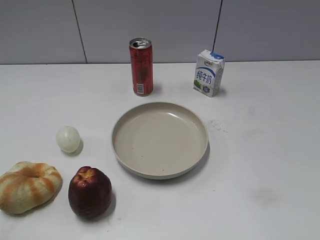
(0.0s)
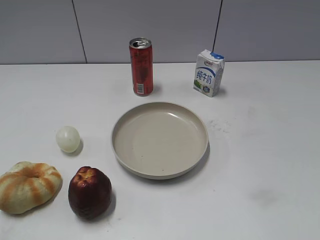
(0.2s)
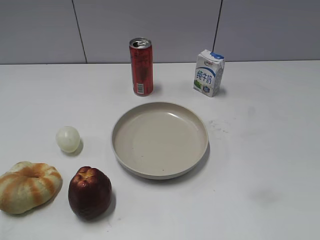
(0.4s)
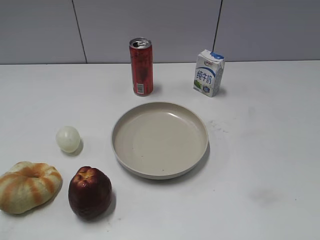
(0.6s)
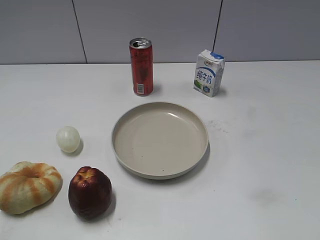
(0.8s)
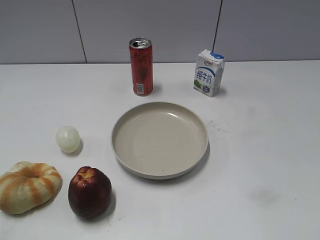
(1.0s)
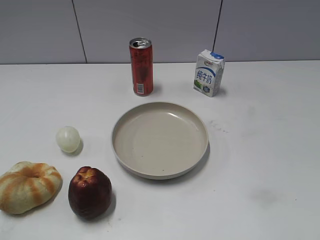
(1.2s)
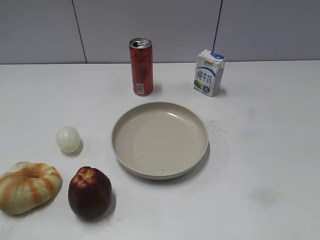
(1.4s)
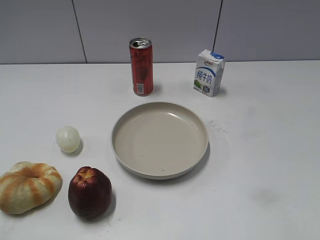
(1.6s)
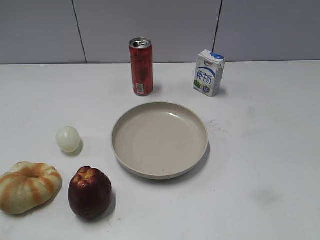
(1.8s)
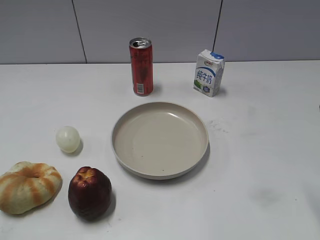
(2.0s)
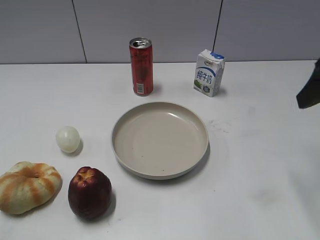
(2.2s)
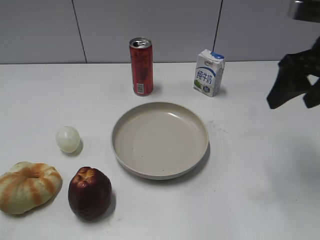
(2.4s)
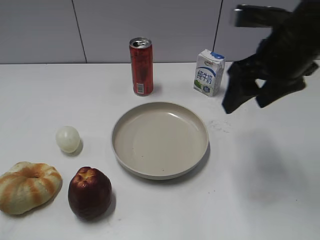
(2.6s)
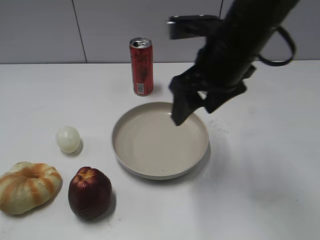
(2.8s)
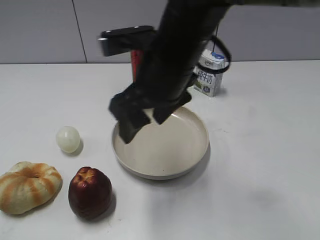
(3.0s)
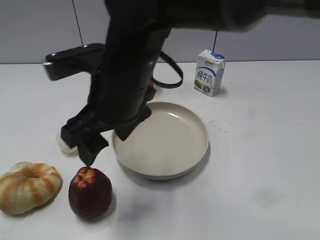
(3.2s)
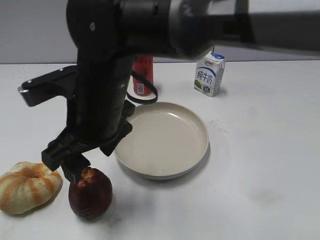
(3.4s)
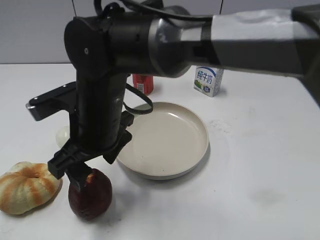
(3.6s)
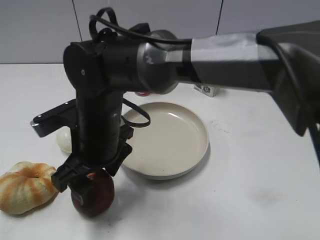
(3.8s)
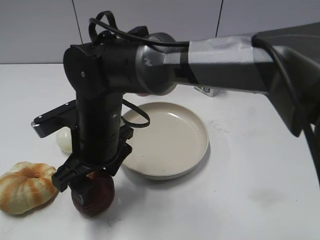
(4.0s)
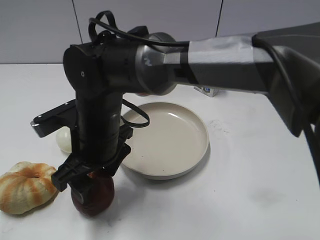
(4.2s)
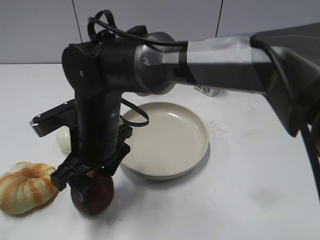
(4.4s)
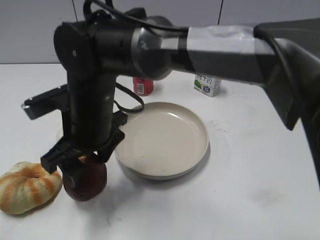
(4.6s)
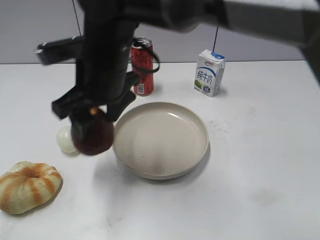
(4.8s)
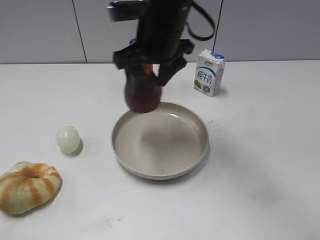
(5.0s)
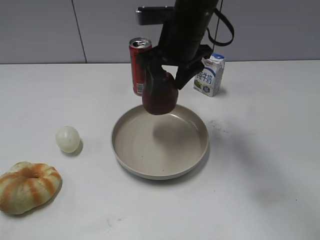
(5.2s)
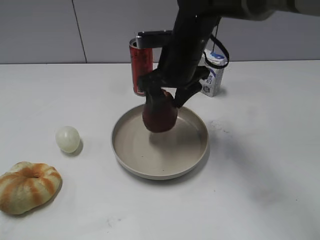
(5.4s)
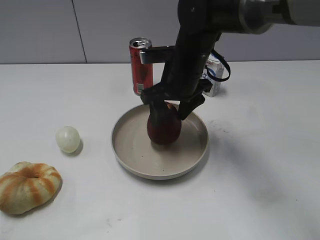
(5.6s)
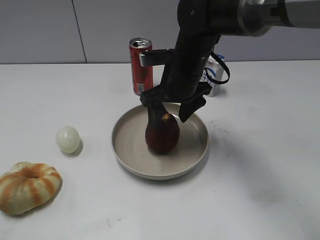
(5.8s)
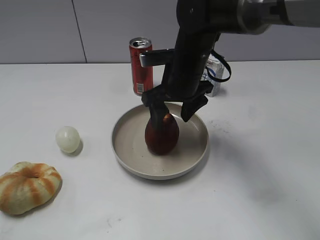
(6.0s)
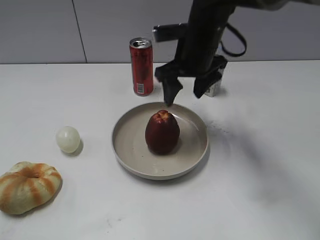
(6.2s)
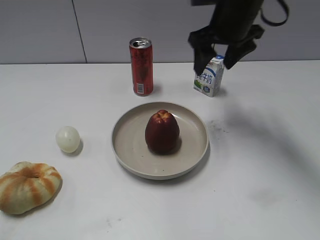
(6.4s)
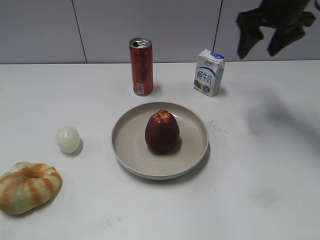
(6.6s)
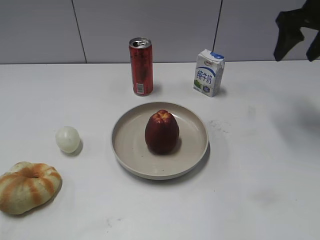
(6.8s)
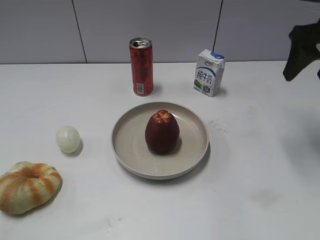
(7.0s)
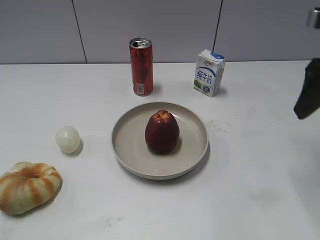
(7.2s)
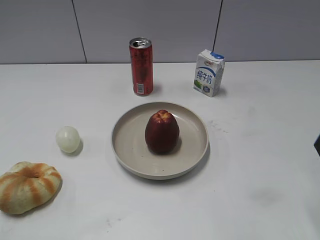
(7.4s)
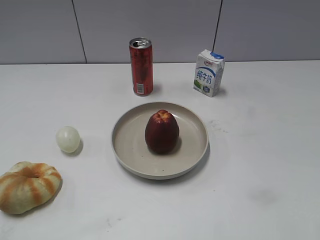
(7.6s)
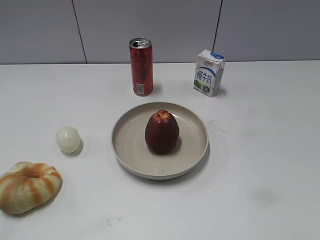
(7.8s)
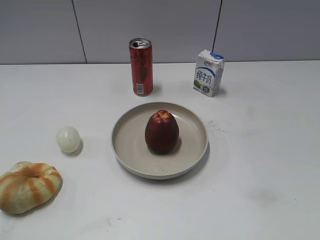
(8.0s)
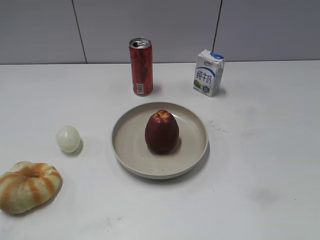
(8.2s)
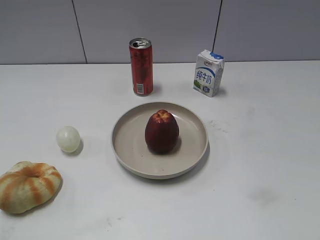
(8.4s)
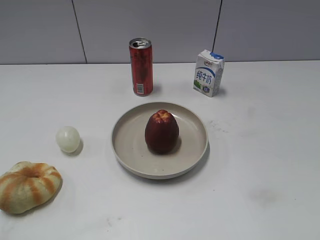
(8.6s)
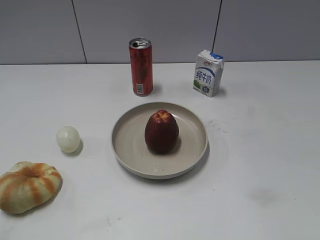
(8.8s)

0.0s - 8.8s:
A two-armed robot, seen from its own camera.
Step, 2.2s - 4.2s: Grasp the apple with right gripper.
Step, 4.4s - 6.0s: Place the apple on the plate with right gripper.
1.4s - 3.0s: The right gripper shifts approximately 35 cm to the left and forward.
3.0s - 4.4s: The right gripper shifts roughly 15 cm downward and to the left.
4.4s - 5.8s: The right gripper heads to the right and forward, covering approximately 20 cm.
5.8s - 7.4s: The right gripper moves to the right, backward and upward, approximately 30 cm.
